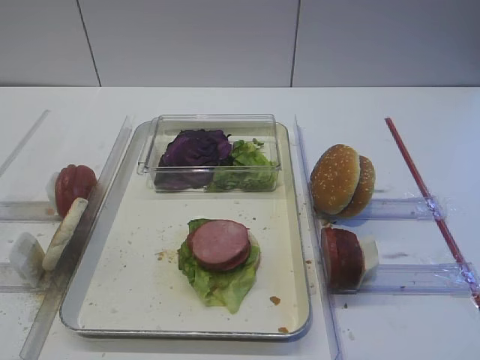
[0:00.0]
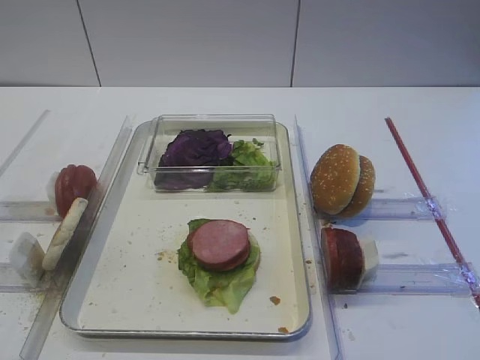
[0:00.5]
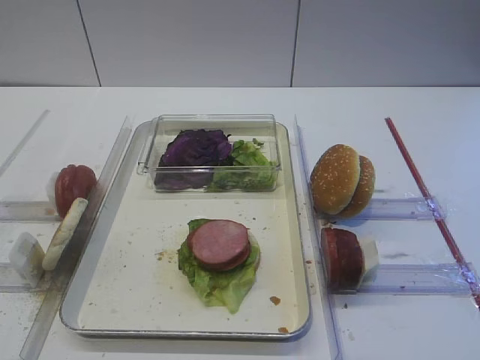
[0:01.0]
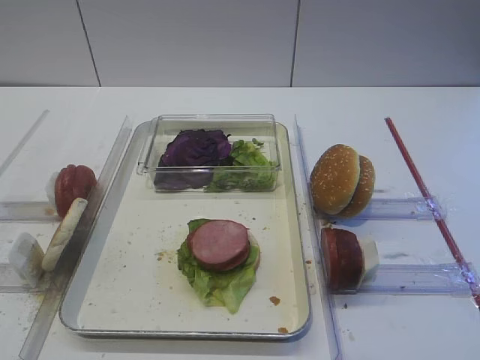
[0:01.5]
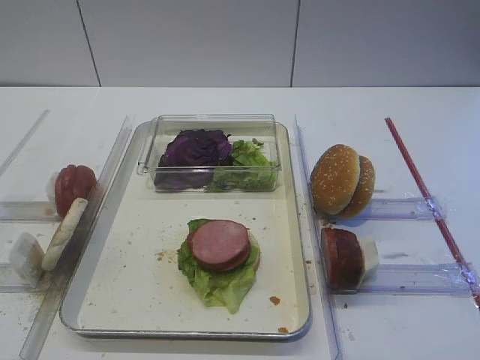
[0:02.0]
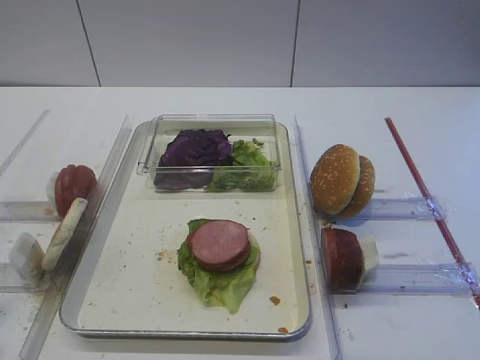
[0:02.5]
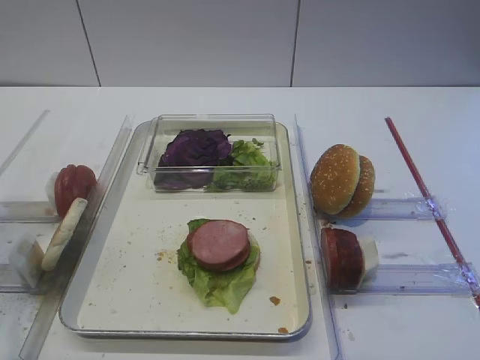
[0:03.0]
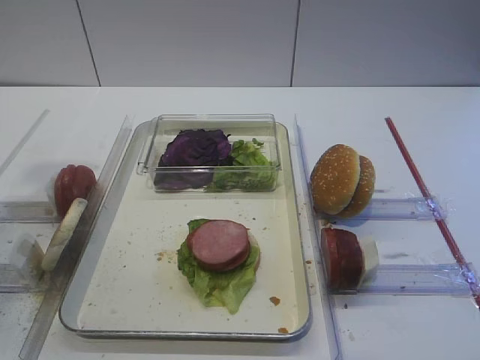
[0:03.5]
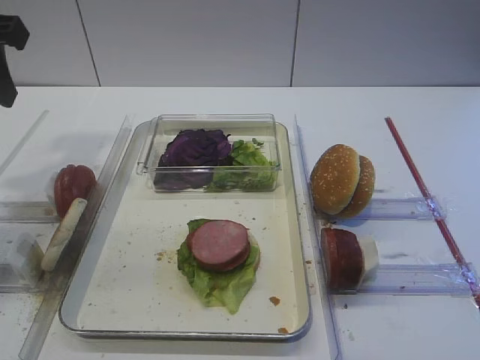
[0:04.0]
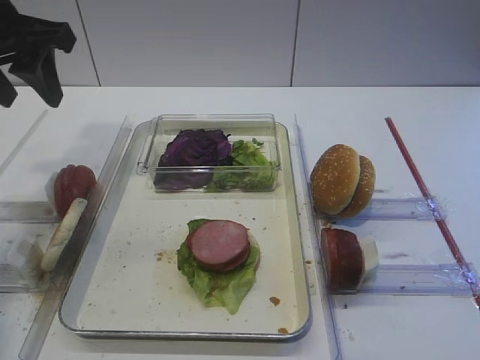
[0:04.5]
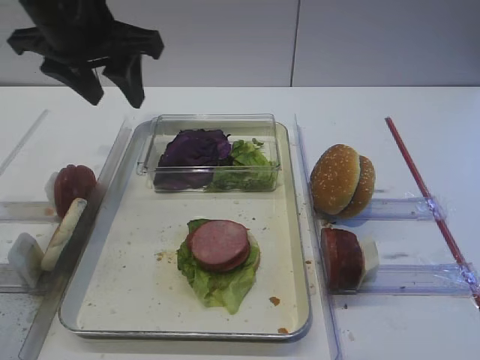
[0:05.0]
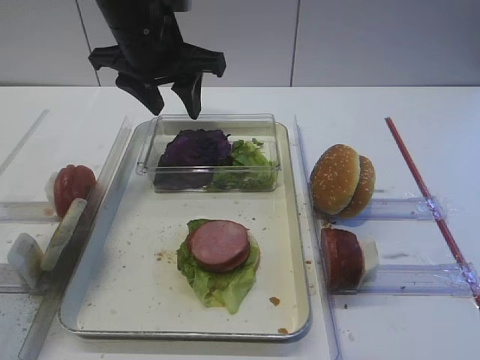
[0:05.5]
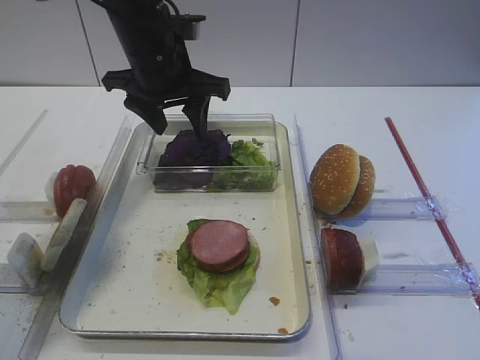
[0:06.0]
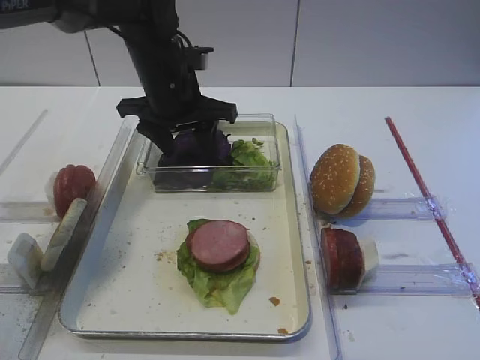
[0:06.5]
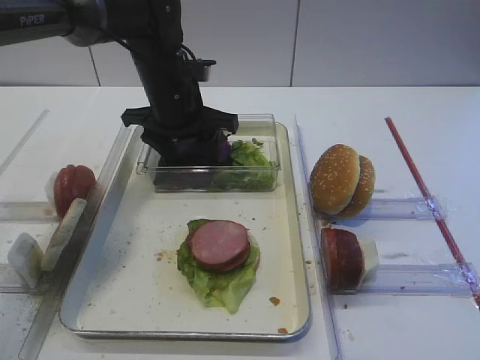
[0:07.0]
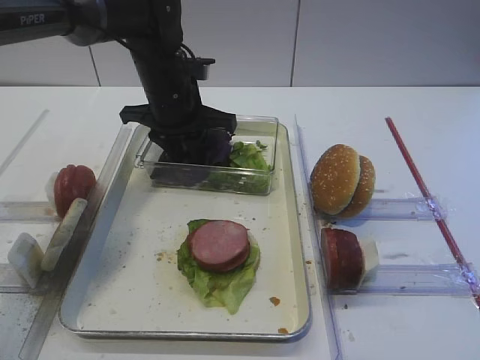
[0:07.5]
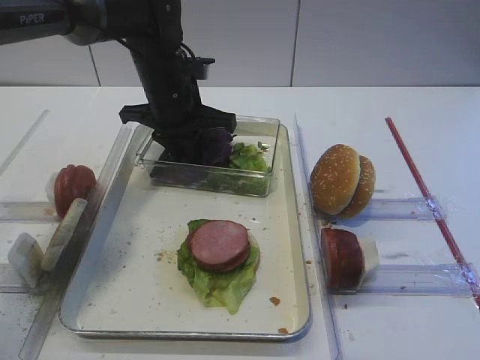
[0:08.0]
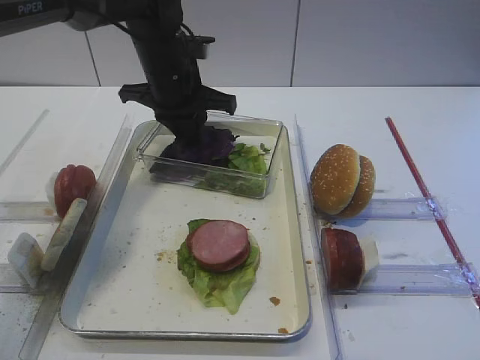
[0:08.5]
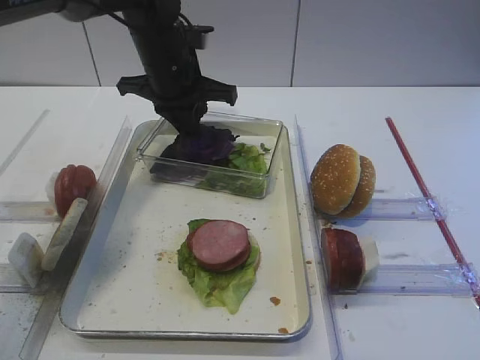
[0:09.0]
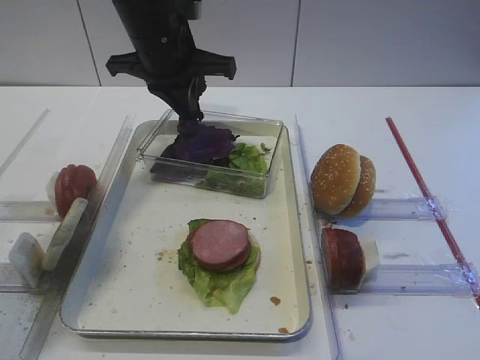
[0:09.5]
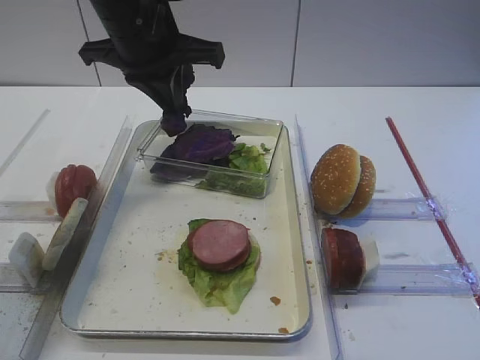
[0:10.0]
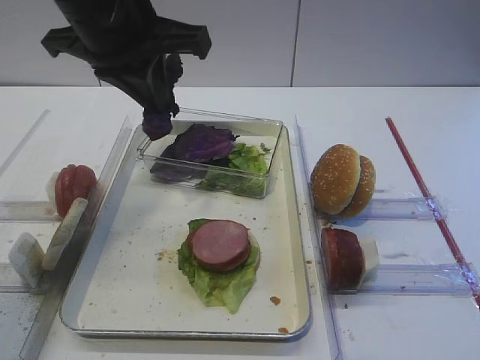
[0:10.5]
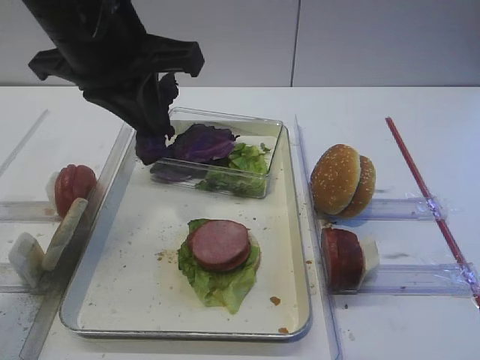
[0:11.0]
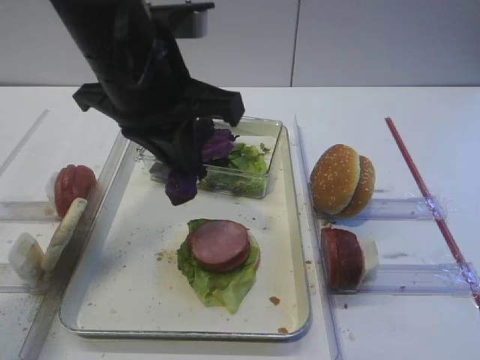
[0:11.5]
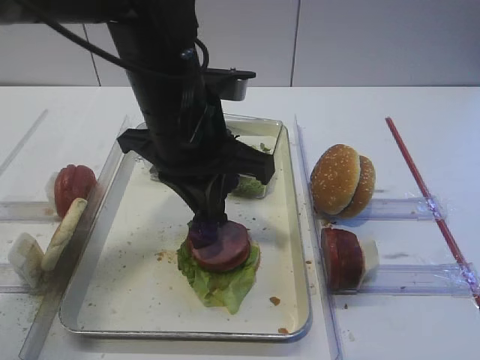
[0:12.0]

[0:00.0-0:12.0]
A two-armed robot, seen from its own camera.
Step, 0:00.0 to 0:10.0: Pick up the purple cabbage with the left gripper.
0:02.0 to 0:04.0: The left gripper travels forward by about 30 cm.
0:04.0 to 0:06.0: The left gripper moves to the right, forward and downward, some 20 cm.
0:06.0 to 0:08.0: The left gripper is displaced downward by some 5 cm, and closes its fingers.
0:08.0 to 0:10.0: The left gripper heads upward and backward, covering approximately 10 cm.
0:10.0 to 0:12.0: The left gripper is displaced backward and to the right by about 10 cm.

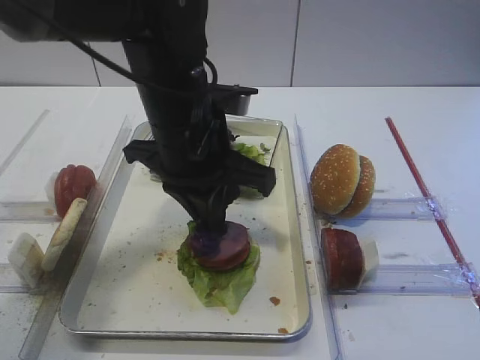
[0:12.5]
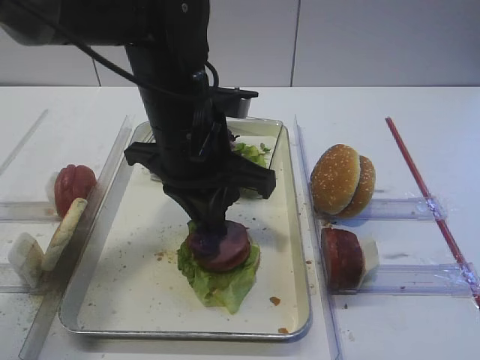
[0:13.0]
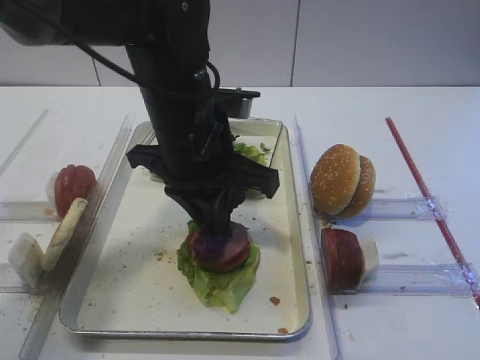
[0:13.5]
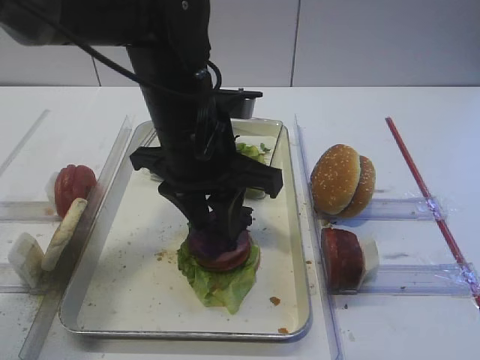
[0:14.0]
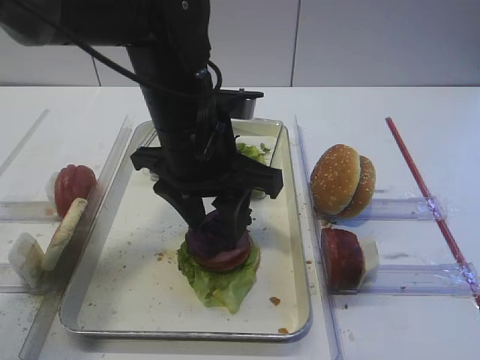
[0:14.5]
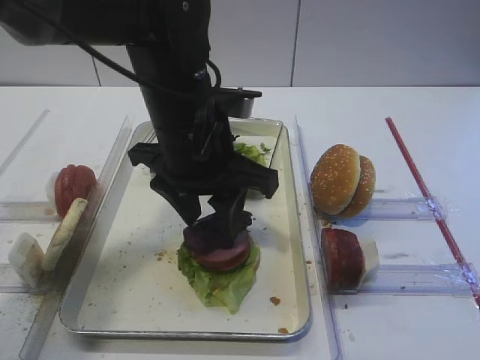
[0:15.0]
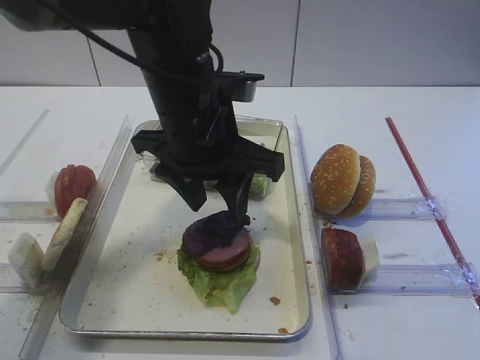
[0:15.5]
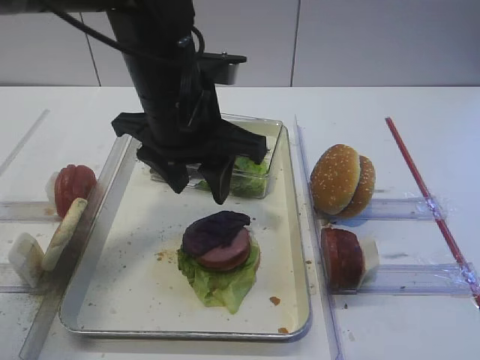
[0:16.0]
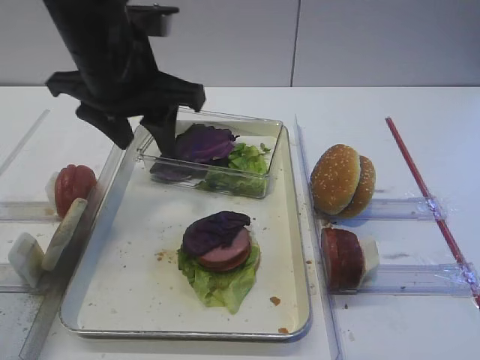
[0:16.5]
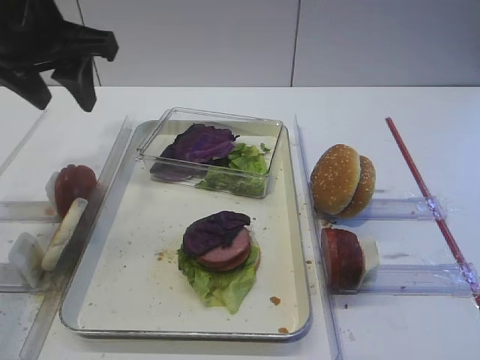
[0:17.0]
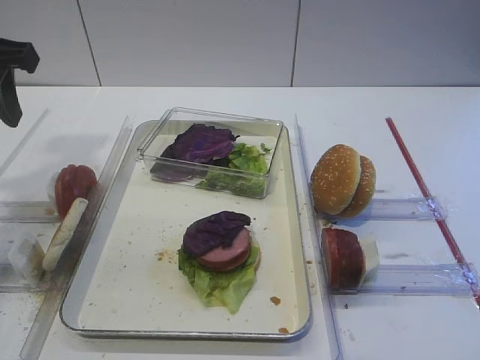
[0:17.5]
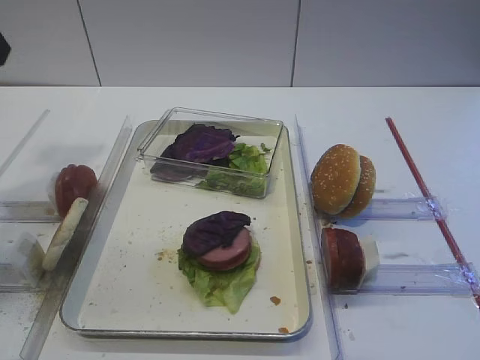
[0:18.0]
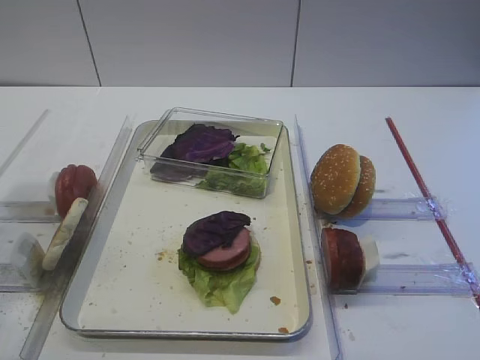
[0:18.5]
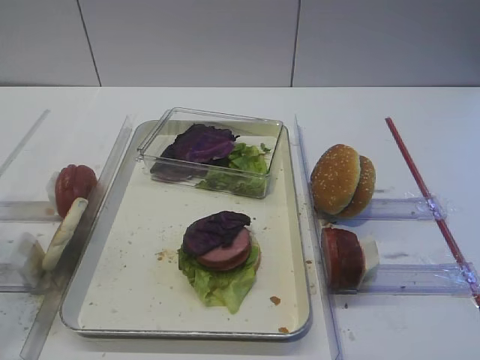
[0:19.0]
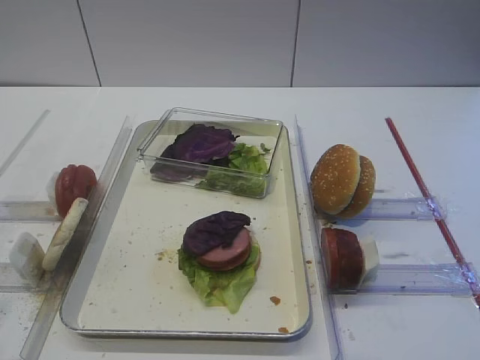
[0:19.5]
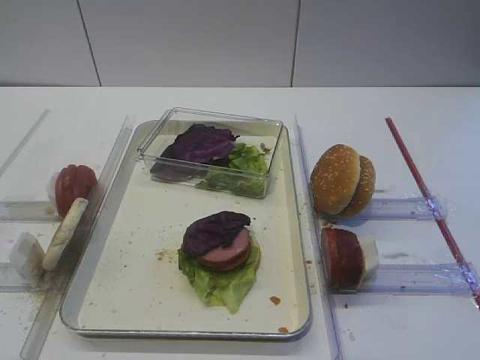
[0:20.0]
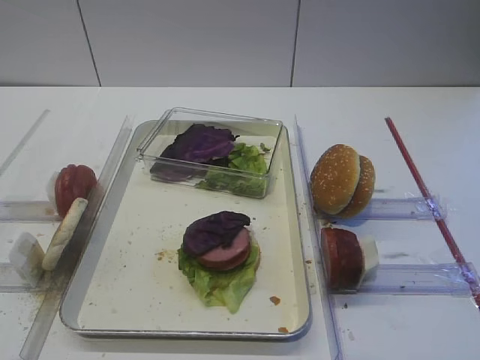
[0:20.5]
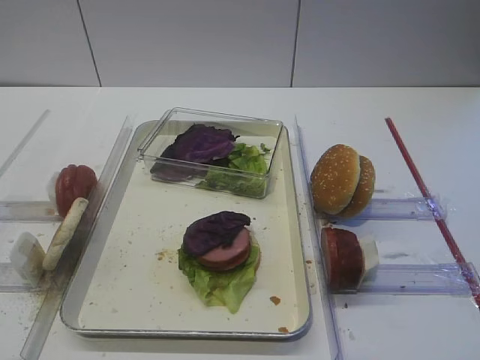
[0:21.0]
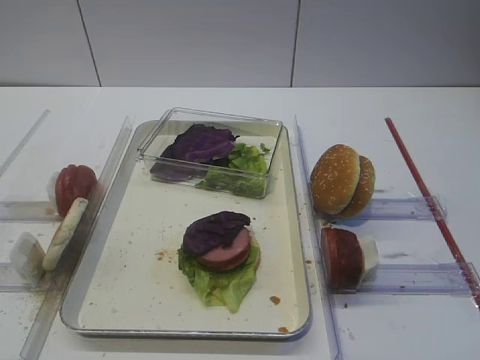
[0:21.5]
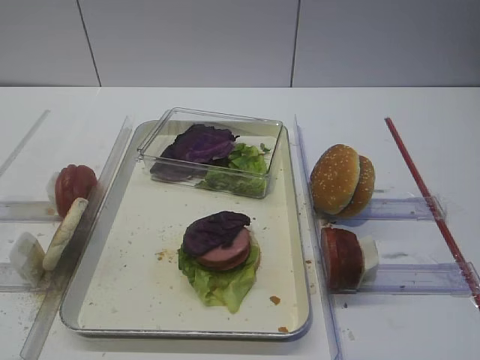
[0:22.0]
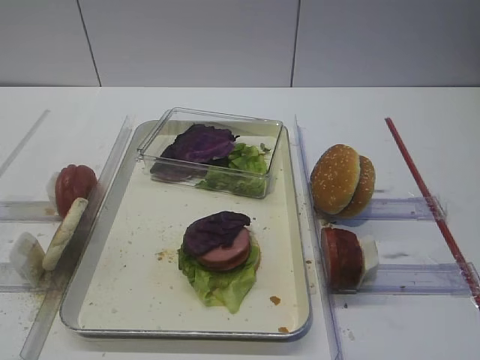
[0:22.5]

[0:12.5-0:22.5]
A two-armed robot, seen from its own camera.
Step, 0:12.5 to 0:15.5: Place the purple cabbage on the cutlet with the left gripper.
0:12.5 to 0:14.5: The left gripper opens up.
0:14.5 to 0:16.5: The left gripper travels to the left by about 5 cm.
0:16.5 to 0:18.5: The left gripper heads to the left and backward, covering about 20 cm.
0:18.5 to 0:20.5: The left gripper shifts some 20 cm backward and downward.
0:20.5 to 0:22.5: Both grippers stay about where they are.

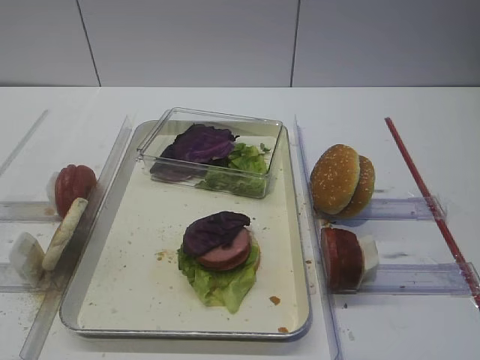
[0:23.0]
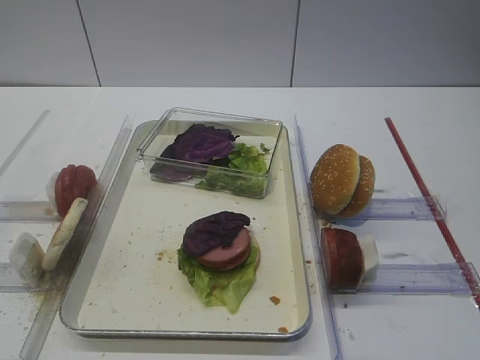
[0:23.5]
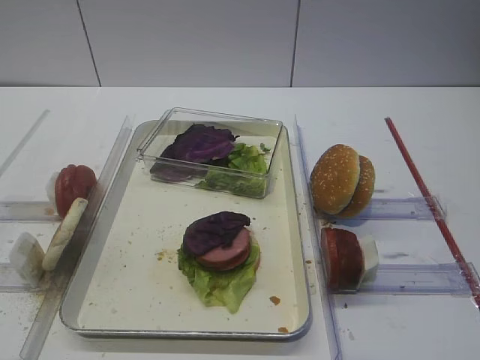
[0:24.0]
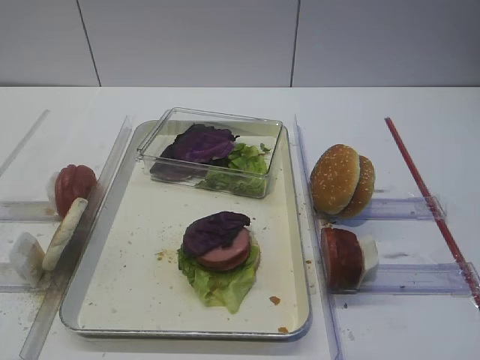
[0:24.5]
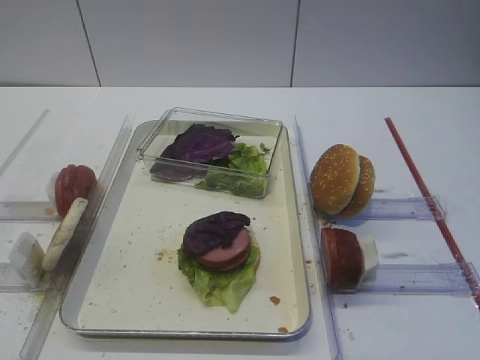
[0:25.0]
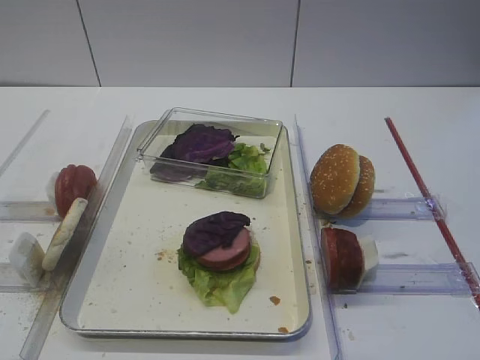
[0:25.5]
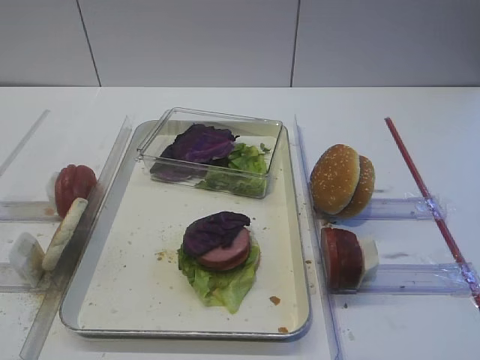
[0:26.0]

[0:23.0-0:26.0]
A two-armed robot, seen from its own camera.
0:23.0 to 0:26.0: Both grippers stay about where they are.

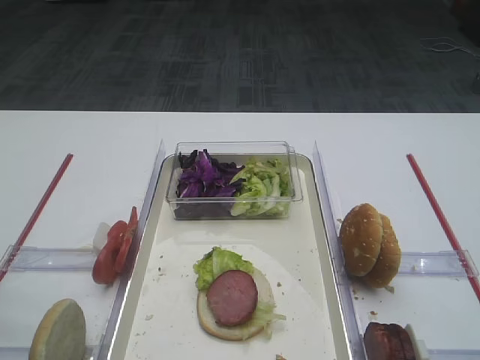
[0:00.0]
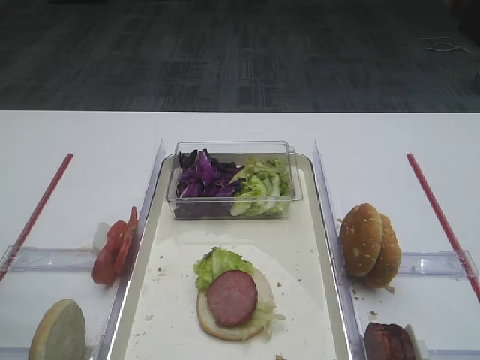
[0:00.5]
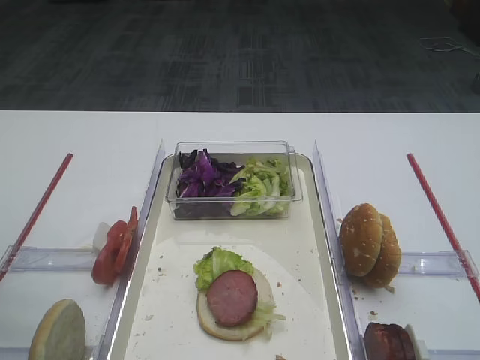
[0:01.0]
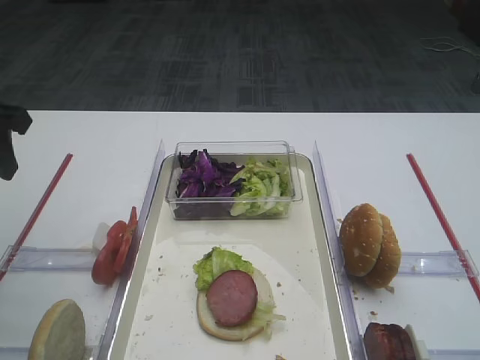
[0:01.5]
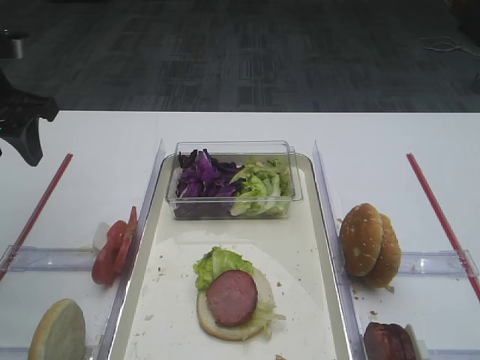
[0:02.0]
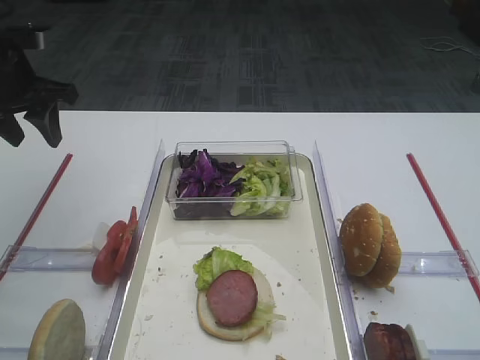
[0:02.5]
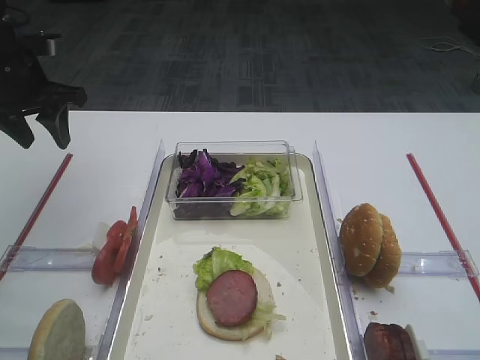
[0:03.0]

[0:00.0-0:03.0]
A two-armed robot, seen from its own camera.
0:00.0 to 0:01.5: The left gripper shifts about 20 cm forward.
0:01.5 to 0:03.0: The left gripper shifts some 15 cm forward.
